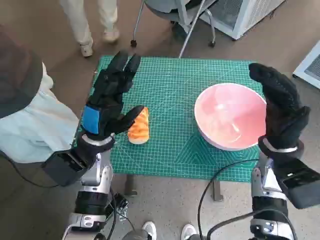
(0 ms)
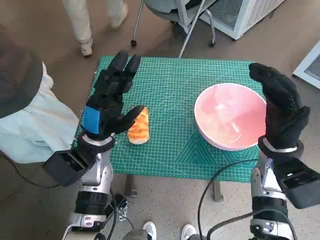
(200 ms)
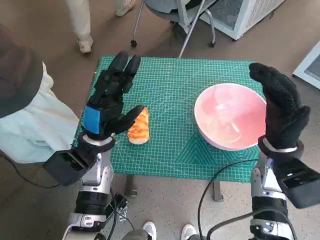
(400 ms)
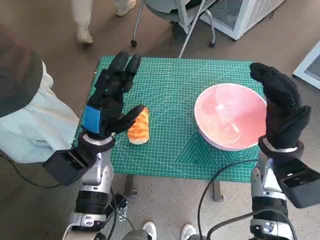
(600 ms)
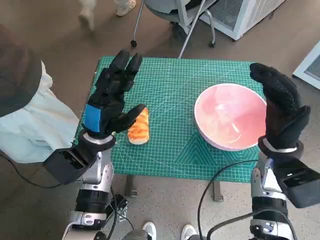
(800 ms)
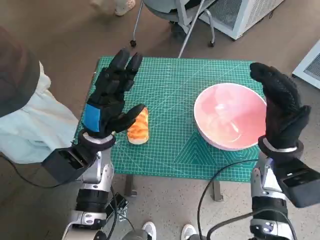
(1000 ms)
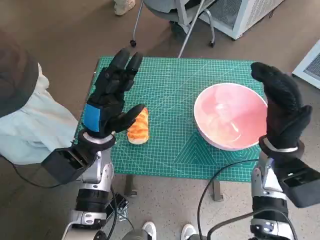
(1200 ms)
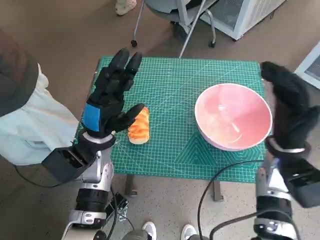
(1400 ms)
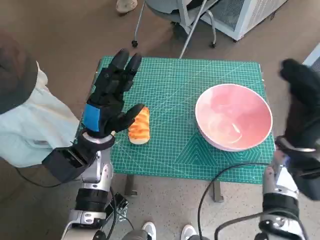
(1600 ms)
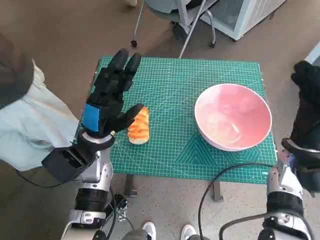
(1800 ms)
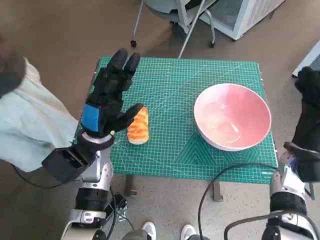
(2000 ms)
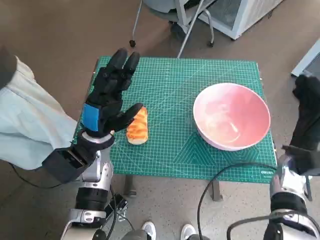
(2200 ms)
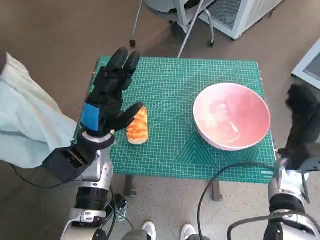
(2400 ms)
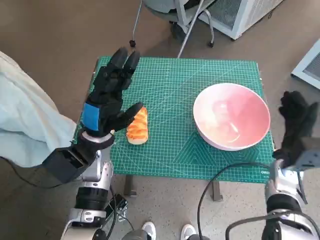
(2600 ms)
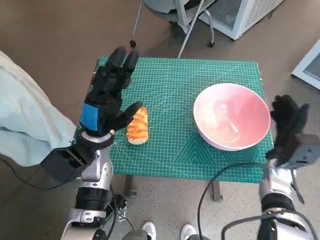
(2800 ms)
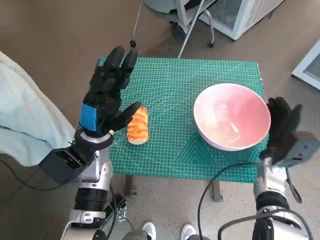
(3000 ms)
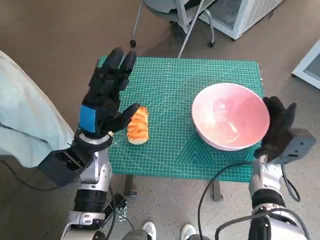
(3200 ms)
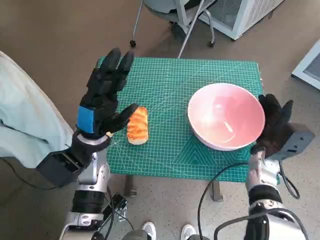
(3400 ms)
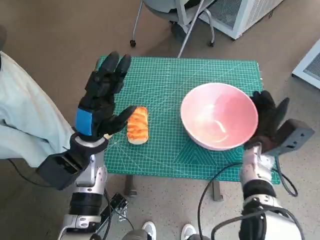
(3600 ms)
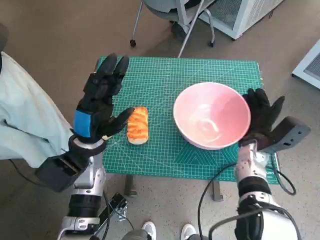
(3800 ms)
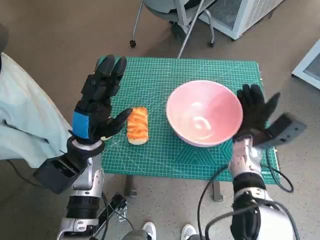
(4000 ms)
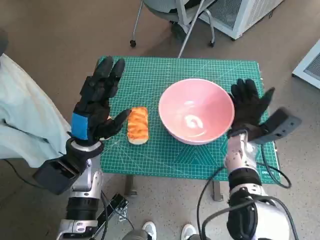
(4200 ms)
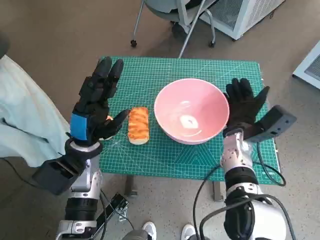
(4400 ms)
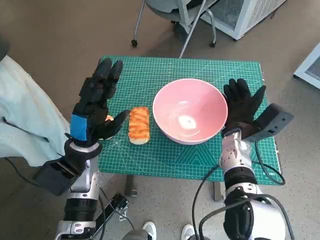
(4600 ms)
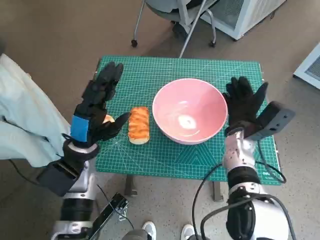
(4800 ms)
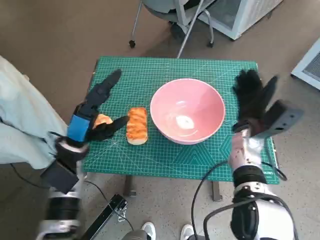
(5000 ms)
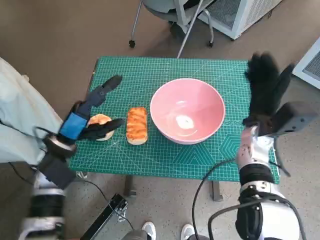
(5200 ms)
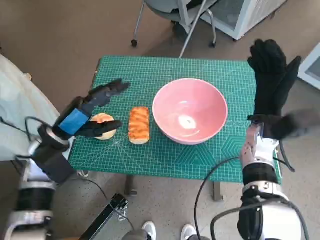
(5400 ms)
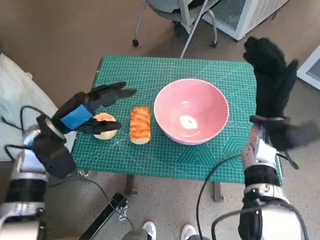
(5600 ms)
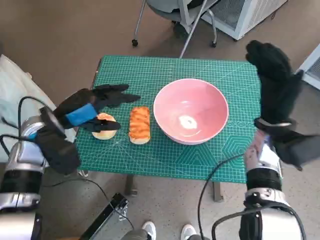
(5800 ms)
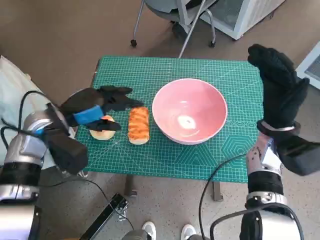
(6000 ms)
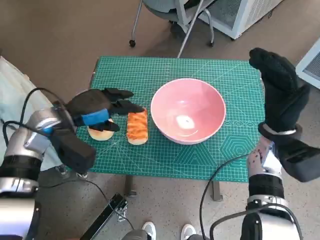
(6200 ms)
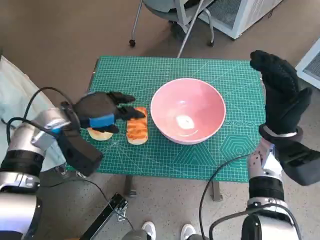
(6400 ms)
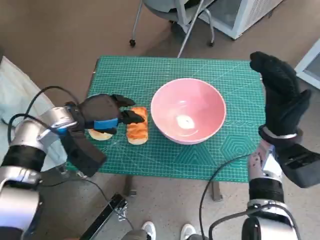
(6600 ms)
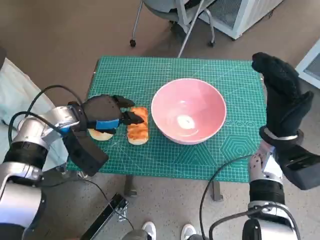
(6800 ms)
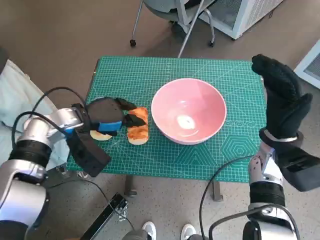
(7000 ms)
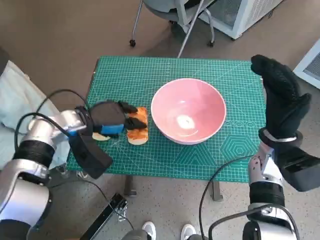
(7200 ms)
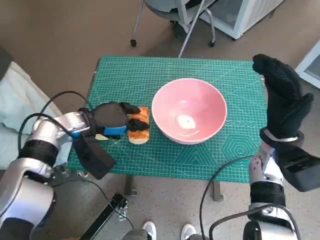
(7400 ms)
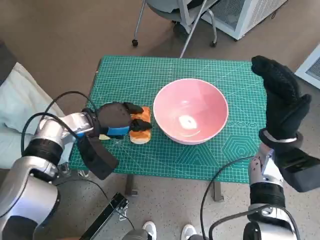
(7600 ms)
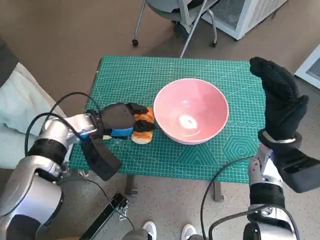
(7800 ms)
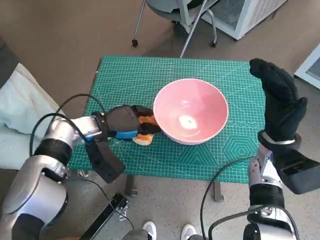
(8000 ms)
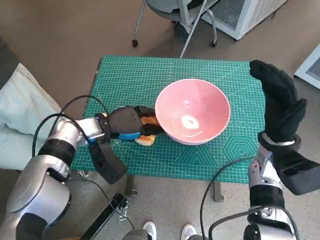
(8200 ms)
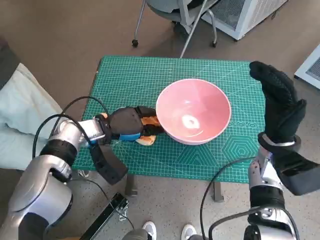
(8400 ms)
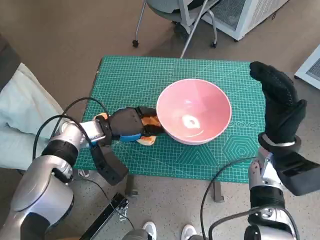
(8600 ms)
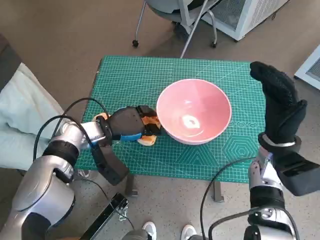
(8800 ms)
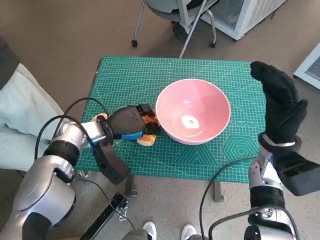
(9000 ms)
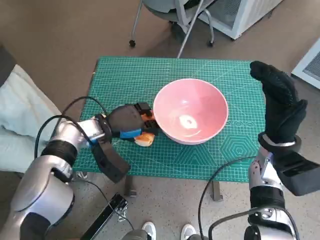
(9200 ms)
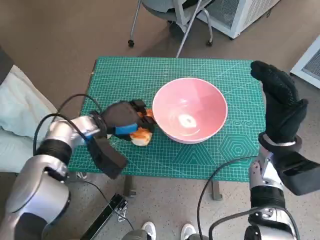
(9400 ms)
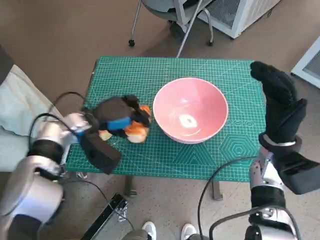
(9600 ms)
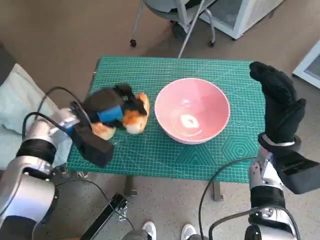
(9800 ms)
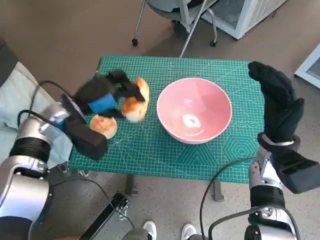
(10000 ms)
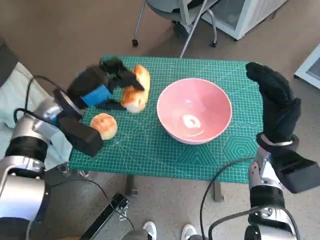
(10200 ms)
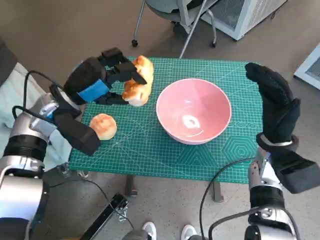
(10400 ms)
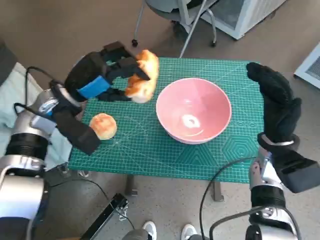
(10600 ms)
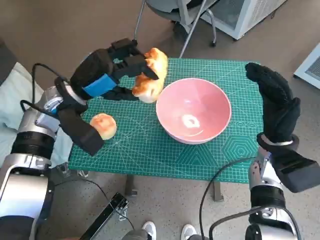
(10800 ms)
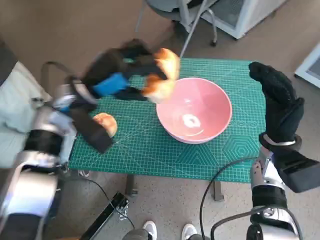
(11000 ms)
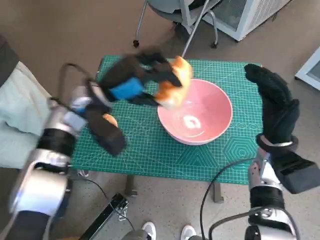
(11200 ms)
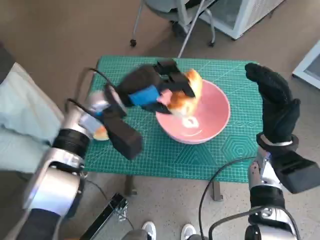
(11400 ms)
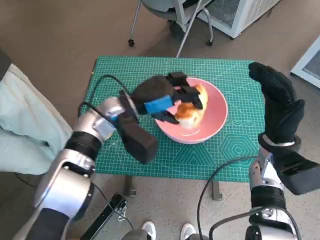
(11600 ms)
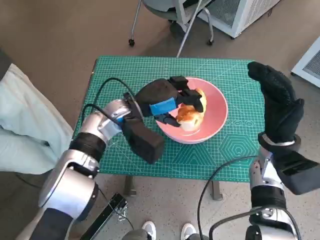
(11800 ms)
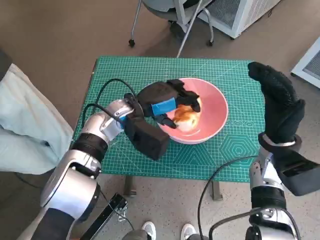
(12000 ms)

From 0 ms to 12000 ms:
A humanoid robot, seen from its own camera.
Task of the whole recording: Push the bowl to the center of the table and put the bread into the bowl.
Step, from 0 ms to 4800 ms: Move the pink bowl to the center of table with right hand.
Step, from 5000 ms to 9000 ms: Grasp the long bread with left hand.
From 1600 ms to 3000 ms: The right hand travels downward by approximately 10 cm.
From 3000 ms to 4400 ms: The right hand goes approximately 10 cm to the left.
From 4400 ms to 6000 ms: The left hand is displaced upward and to the left by about 10 cm, while the right hand is displaced upward and to the right by about 10 cm.
From 6000 ms to 7600 ms: The left hand shifts by some 5 cm.
From 7600 ms to 9000 ms: The hands move only a little.
From 9000 ms to 10400 ms: The left hand moves upward, roughly 10 cm.
From 10400 ms to 12000 ms: The left hand travels to the right by some 10 cm.

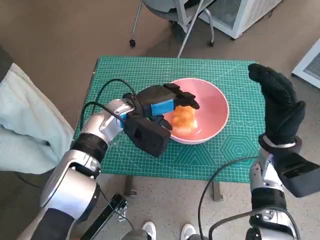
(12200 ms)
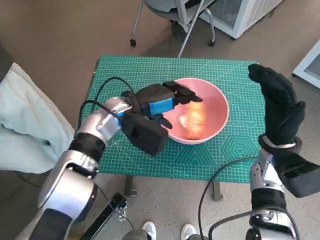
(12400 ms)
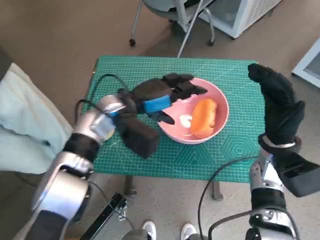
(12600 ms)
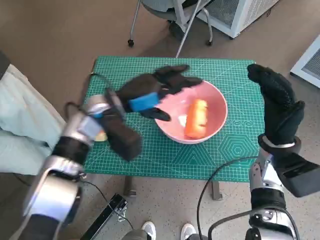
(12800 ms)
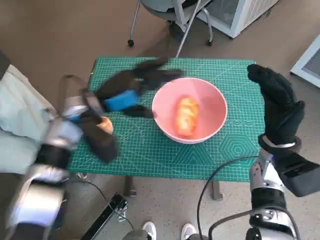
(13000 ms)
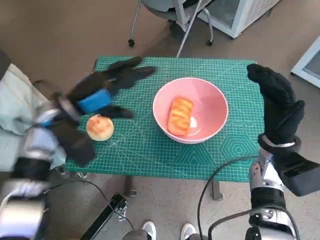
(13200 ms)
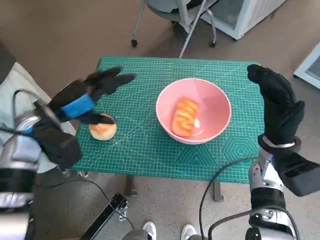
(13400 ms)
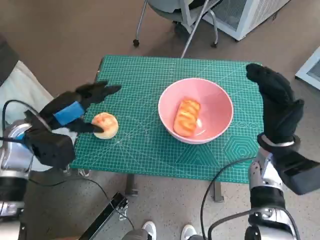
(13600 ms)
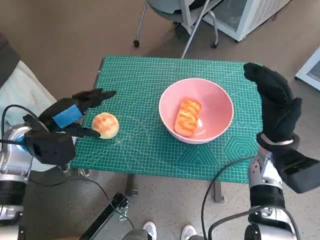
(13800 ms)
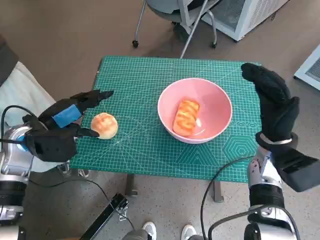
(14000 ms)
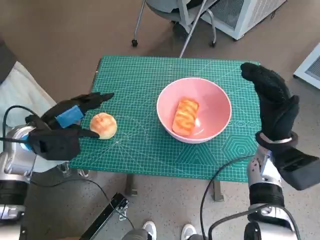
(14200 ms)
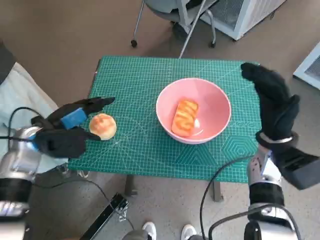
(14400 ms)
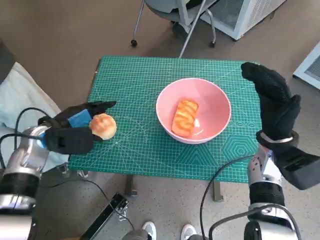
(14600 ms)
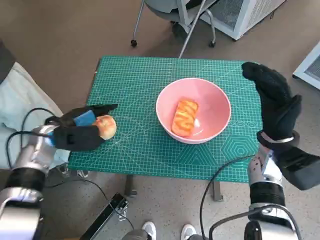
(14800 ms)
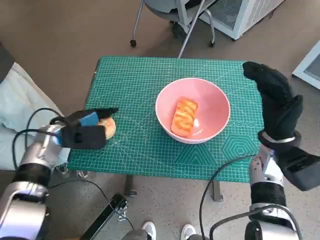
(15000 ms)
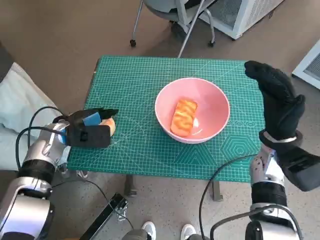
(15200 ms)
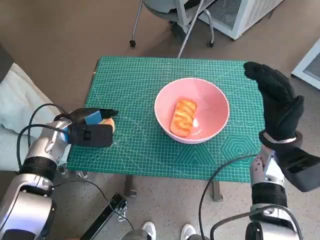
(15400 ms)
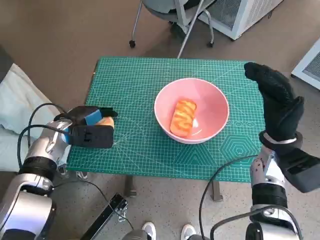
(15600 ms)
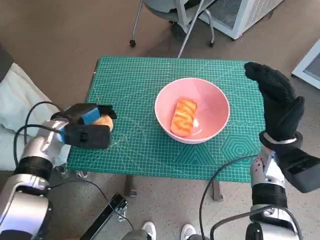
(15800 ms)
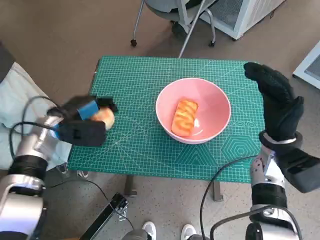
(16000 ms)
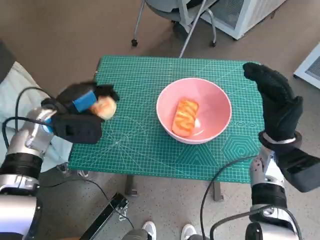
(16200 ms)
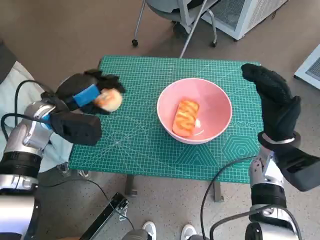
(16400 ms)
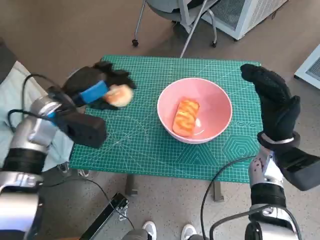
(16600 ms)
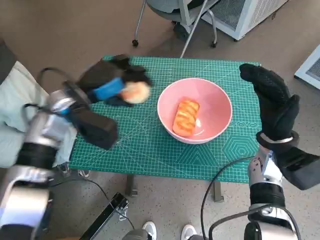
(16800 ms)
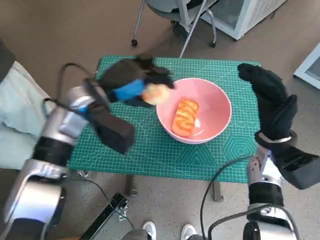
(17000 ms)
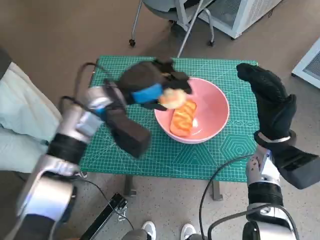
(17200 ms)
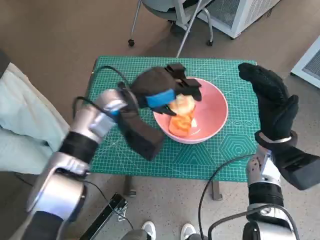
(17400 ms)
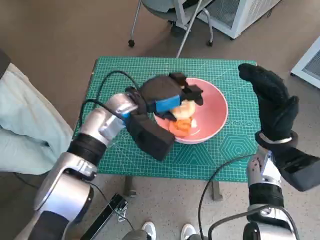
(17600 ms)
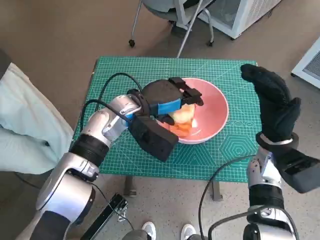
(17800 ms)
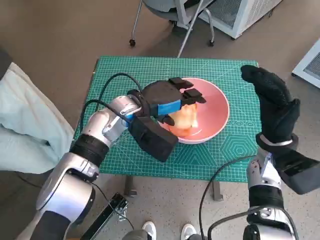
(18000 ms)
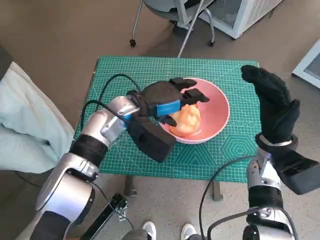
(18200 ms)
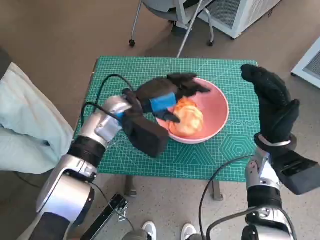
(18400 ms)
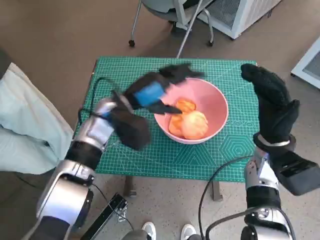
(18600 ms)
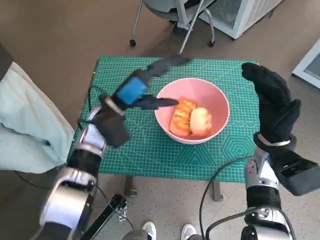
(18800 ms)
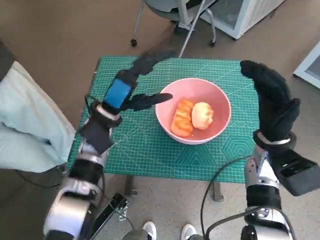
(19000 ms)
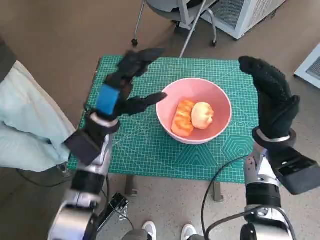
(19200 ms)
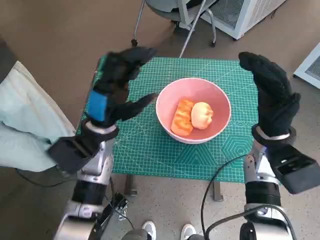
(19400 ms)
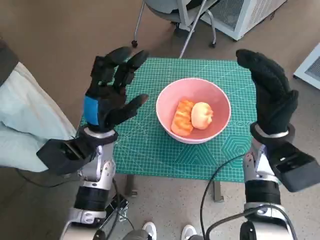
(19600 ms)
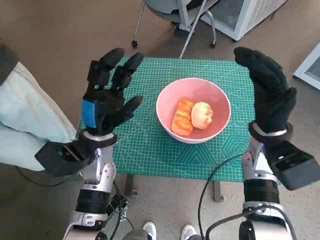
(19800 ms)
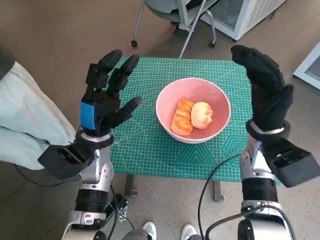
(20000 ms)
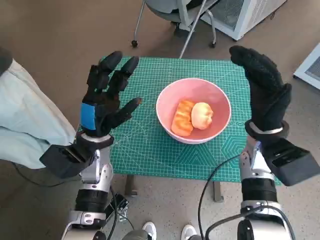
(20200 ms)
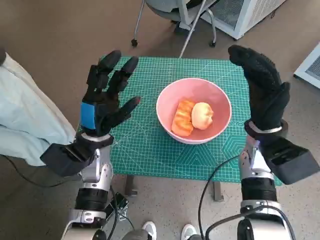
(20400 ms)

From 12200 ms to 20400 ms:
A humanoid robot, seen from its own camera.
Task of the whole recording: Push the bowl to the center of the table and put the bread into the bowl.
Step, from 12400 ms to 15600 ms: Grasp the round bread with left hand.
Step, from 15800 ms to 17800 ms: Place the round bread in pink bowl with left hand.
From 12200 ms to 13800 ms: The left hand moves to the left and backward, roughly 20 cm.
From 13800 ms to 15400 ms: The left hand shifts some 5 cm downward.
From 15400 ms to 17200 ms: The left hand heads to the right and upward, covering roughly 15 cm.
From 18800 ms to 20400 ms: The left hand goes about 5 cm backward.

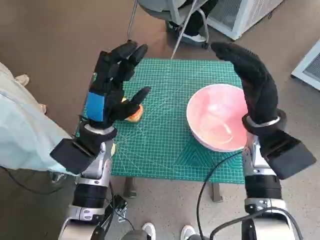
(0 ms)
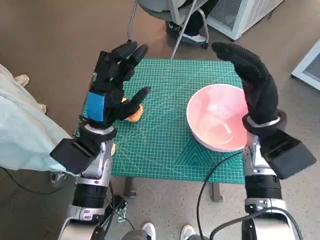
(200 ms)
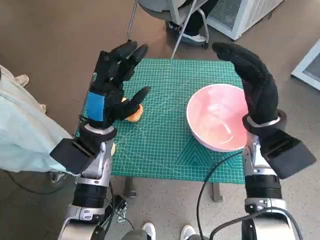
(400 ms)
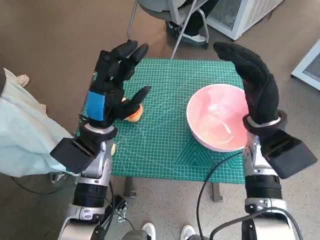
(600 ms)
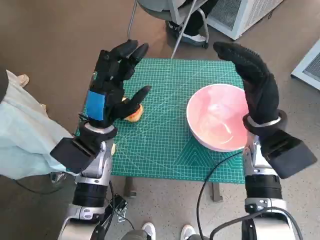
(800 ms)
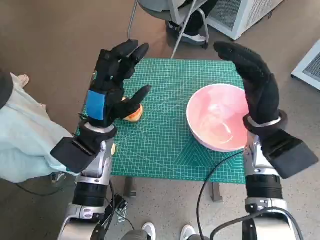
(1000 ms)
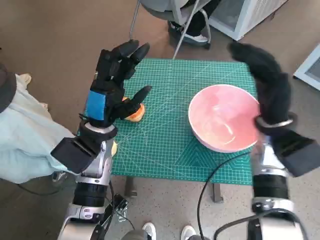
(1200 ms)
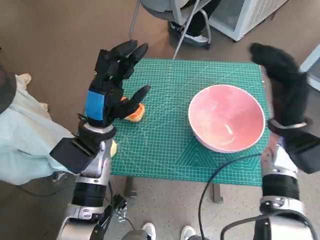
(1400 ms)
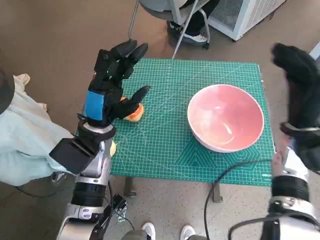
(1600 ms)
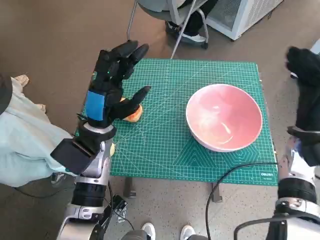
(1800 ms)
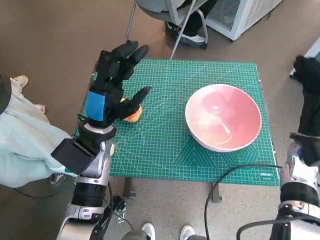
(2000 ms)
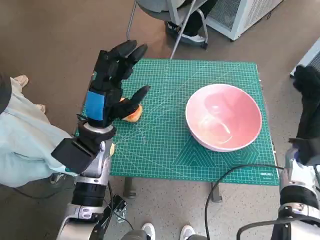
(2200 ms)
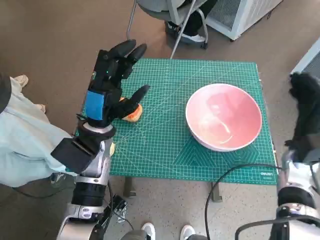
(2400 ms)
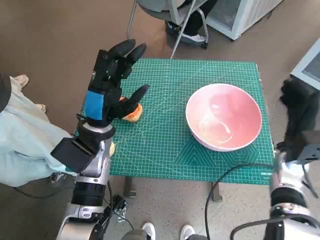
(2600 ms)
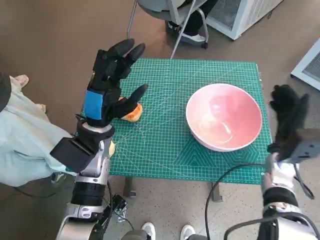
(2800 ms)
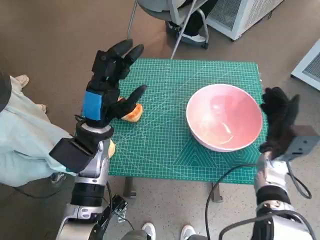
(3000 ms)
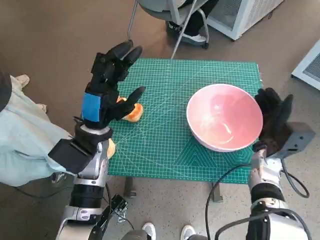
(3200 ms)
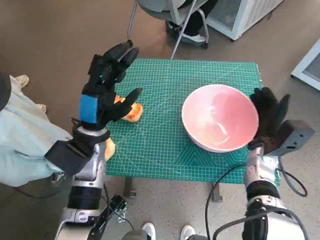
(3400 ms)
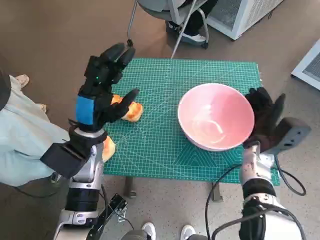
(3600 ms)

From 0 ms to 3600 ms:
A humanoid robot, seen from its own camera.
Task of the whole recording: Push the bowl to the center of the table and put the bread into the bowl.
From 1800 ms to 3600 ms: The right hand heads downward and to the left, covering approximately 10 cm.
